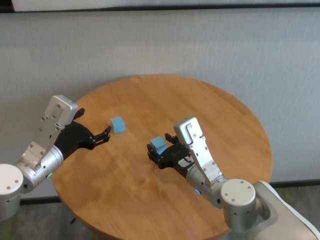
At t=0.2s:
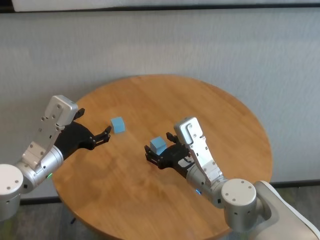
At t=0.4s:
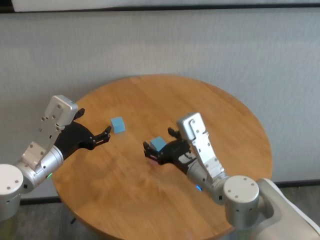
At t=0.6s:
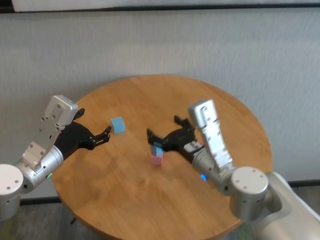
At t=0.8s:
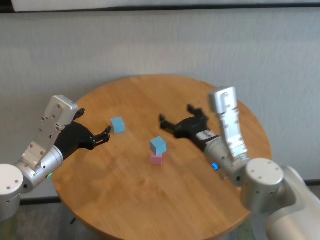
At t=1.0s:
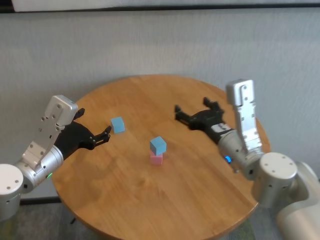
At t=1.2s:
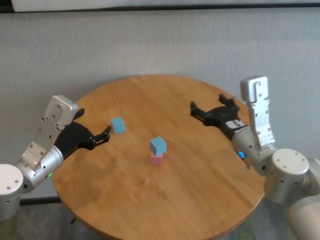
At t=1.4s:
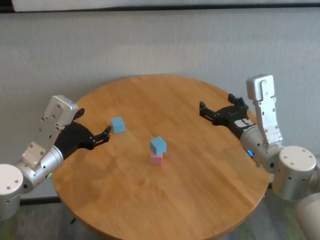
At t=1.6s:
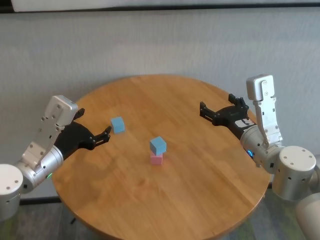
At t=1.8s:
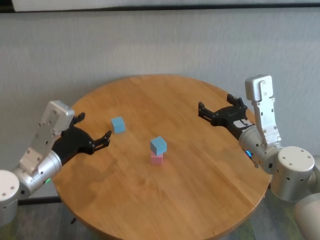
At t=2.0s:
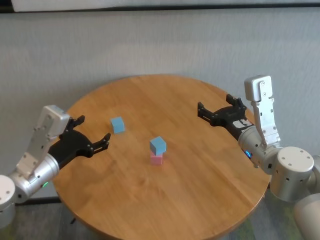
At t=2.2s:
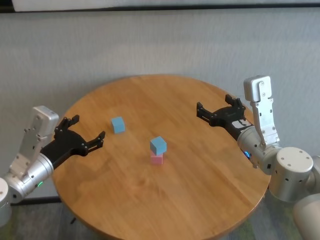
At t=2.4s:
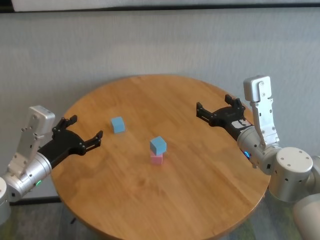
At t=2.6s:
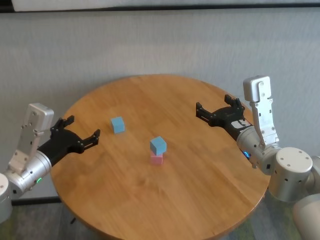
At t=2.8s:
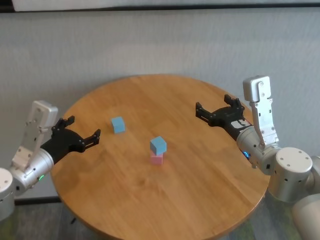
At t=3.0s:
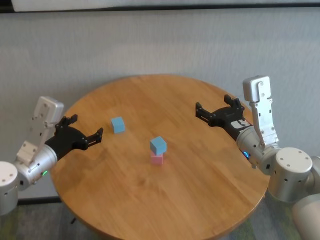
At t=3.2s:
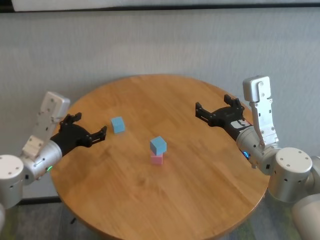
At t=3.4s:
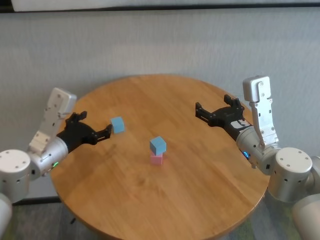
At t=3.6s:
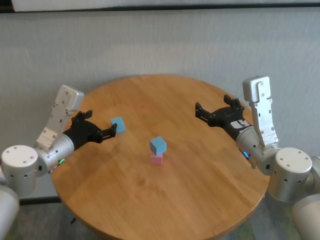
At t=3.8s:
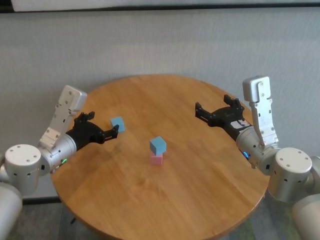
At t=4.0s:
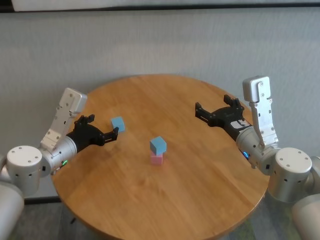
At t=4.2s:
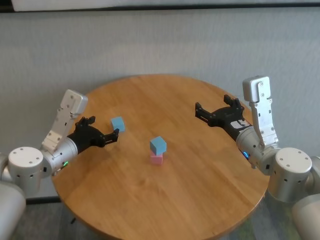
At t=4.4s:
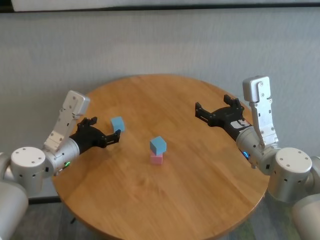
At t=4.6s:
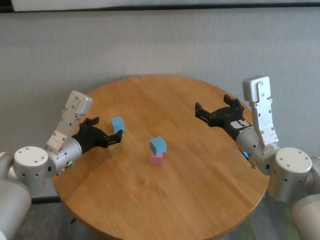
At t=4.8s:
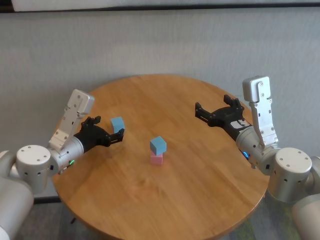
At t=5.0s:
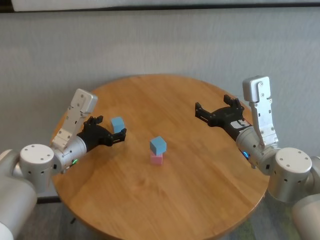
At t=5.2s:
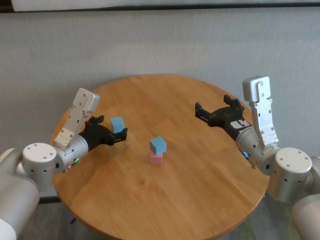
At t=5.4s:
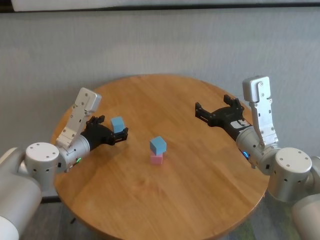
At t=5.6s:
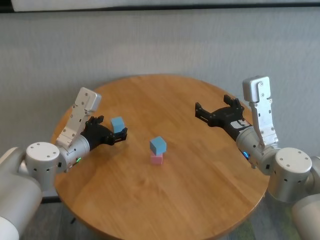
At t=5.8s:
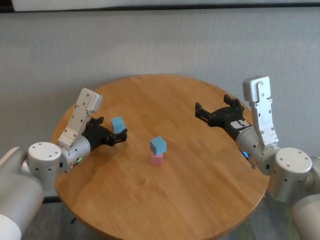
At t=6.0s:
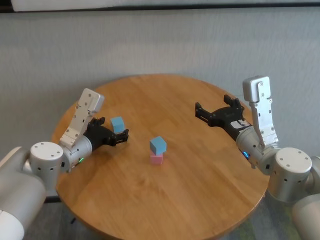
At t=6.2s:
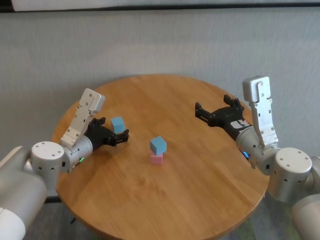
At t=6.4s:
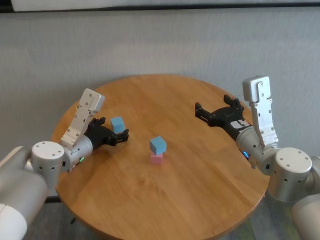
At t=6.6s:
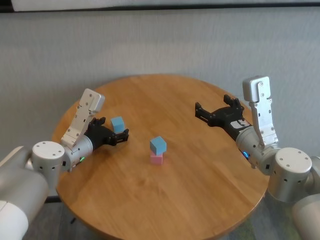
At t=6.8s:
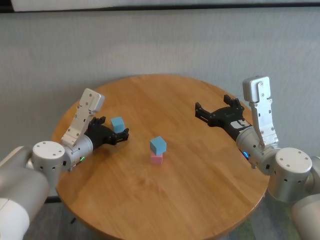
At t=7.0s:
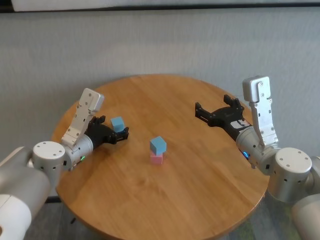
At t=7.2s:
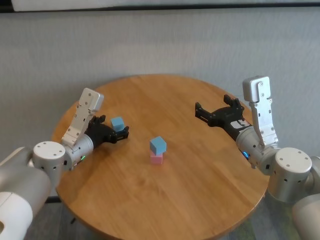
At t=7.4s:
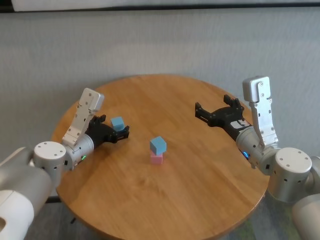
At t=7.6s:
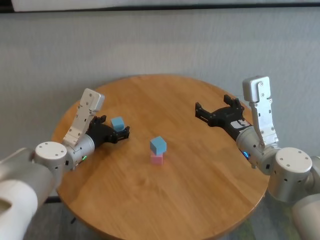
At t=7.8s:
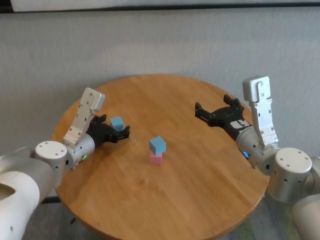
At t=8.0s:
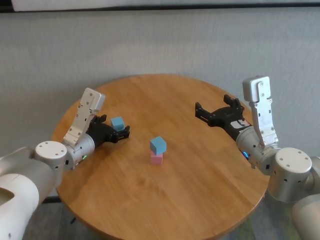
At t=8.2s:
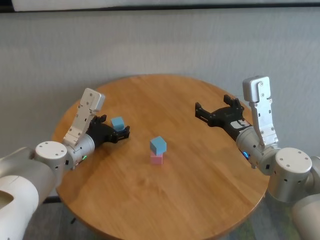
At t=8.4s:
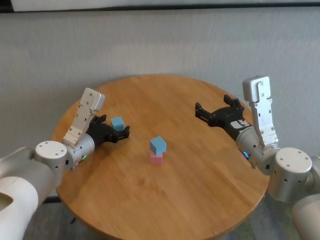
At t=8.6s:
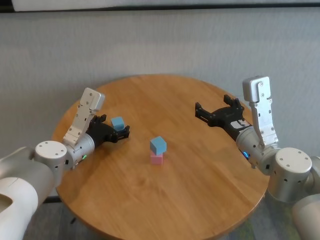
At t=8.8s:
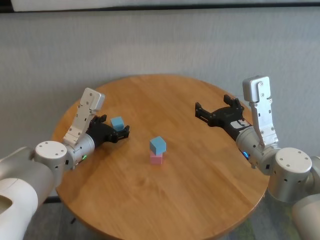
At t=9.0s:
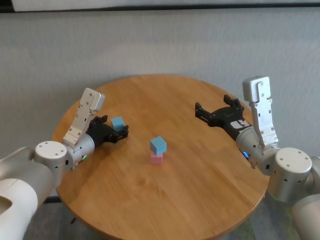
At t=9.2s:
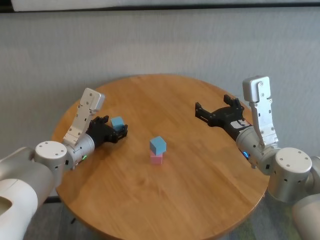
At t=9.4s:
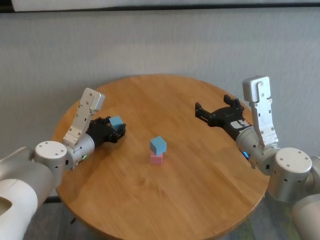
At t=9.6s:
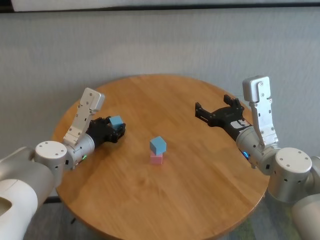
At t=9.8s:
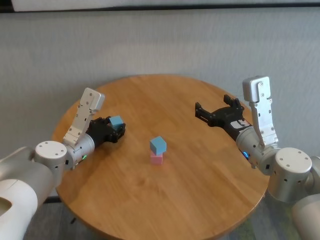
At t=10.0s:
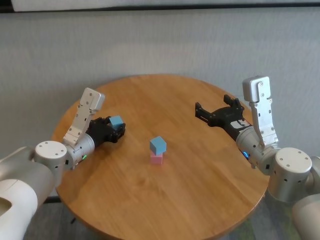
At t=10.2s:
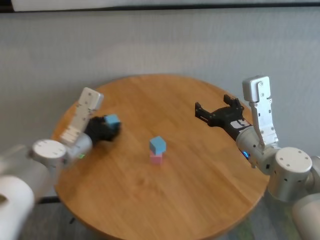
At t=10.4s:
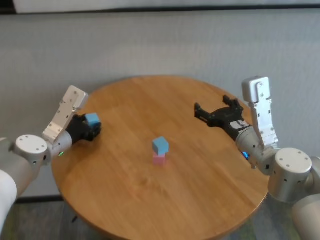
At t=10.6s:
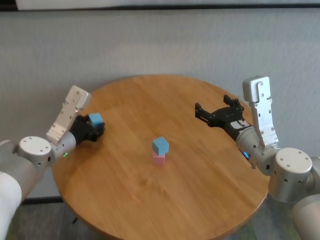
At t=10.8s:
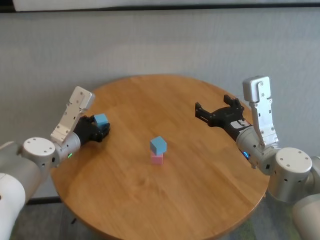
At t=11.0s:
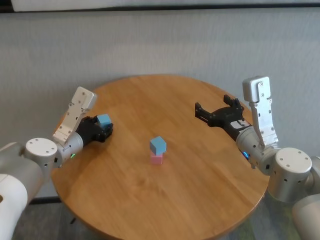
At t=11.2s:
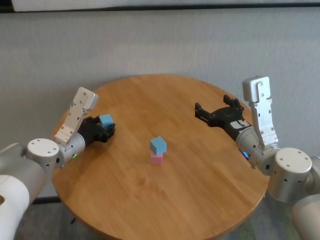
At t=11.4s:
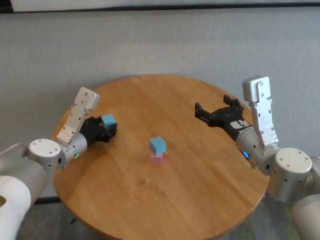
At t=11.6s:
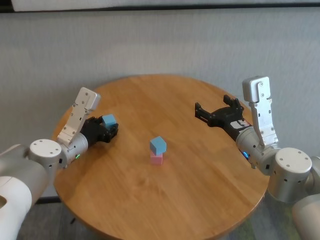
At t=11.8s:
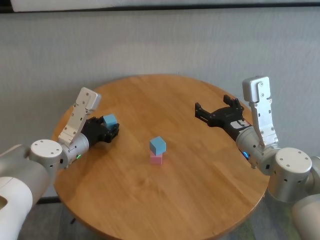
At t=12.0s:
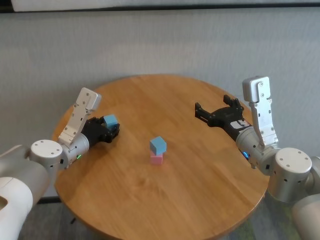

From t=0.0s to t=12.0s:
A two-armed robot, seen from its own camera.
Task of the whole recording: stack building blocks on the table.
Step, from t=0.0s to t=9.4s: Grasp the blue building block with left gripper.

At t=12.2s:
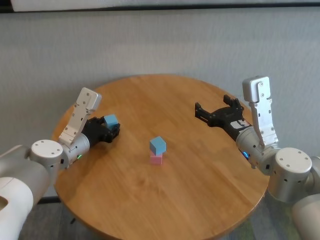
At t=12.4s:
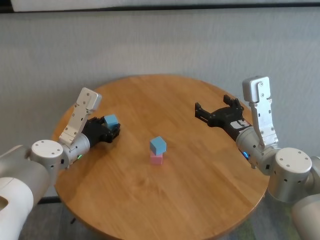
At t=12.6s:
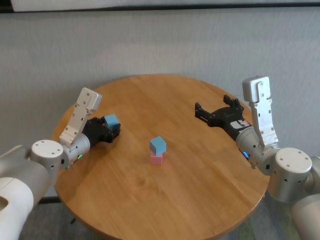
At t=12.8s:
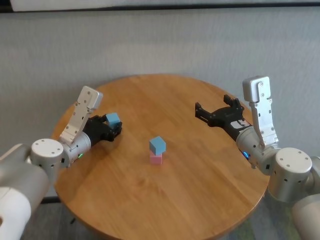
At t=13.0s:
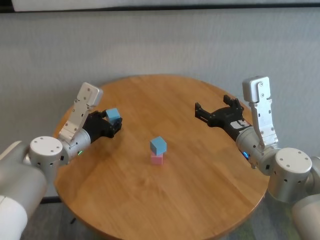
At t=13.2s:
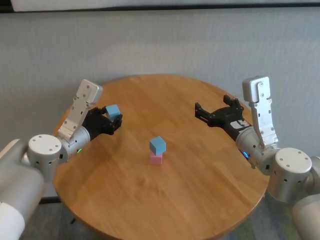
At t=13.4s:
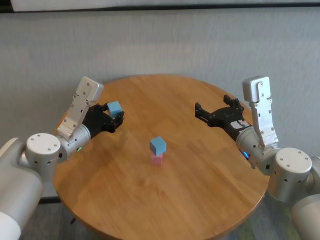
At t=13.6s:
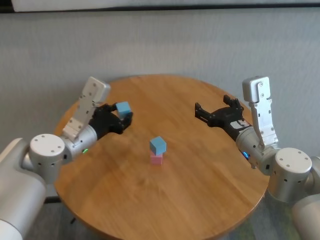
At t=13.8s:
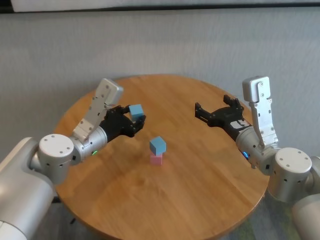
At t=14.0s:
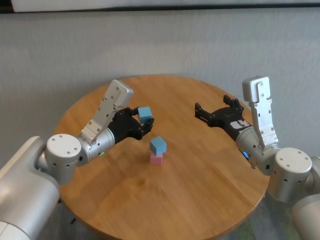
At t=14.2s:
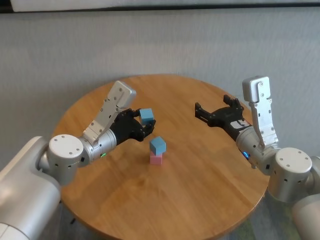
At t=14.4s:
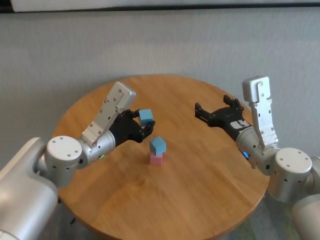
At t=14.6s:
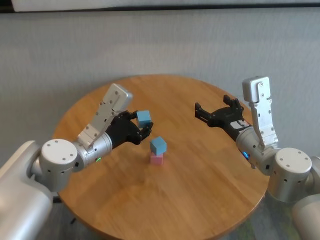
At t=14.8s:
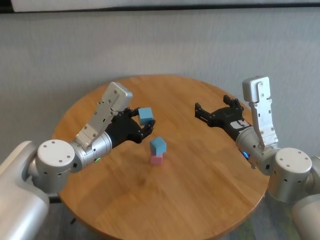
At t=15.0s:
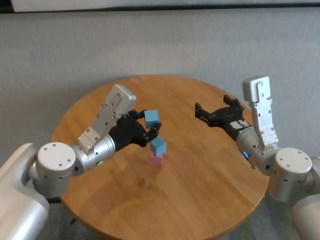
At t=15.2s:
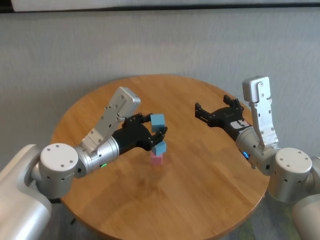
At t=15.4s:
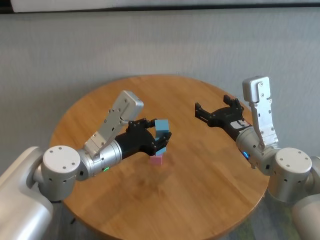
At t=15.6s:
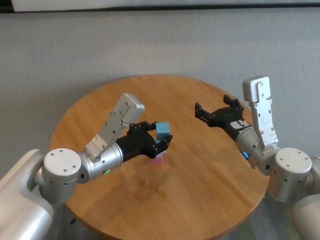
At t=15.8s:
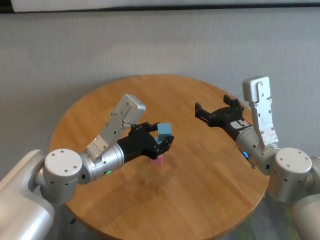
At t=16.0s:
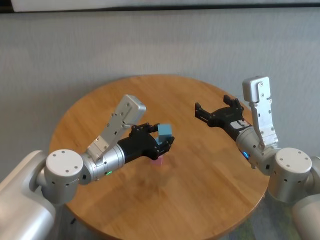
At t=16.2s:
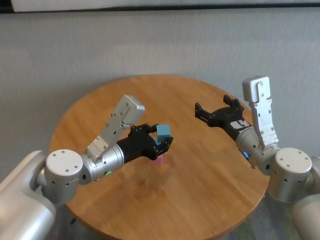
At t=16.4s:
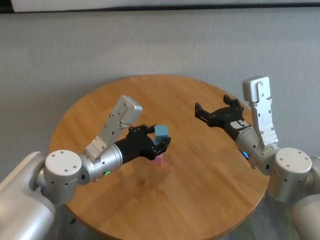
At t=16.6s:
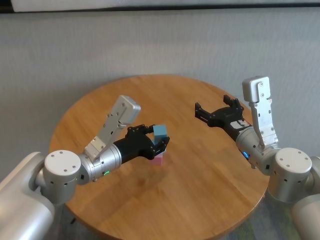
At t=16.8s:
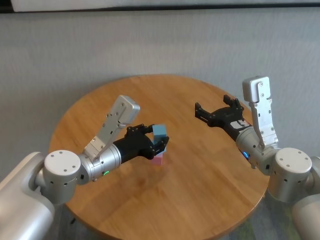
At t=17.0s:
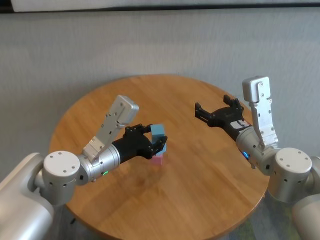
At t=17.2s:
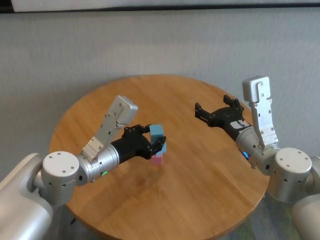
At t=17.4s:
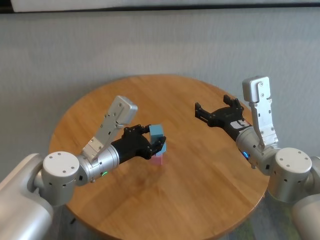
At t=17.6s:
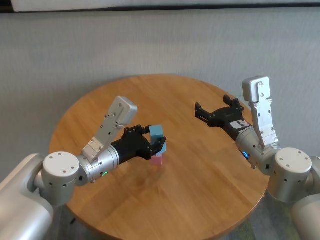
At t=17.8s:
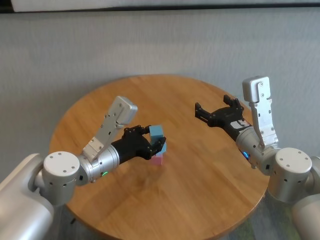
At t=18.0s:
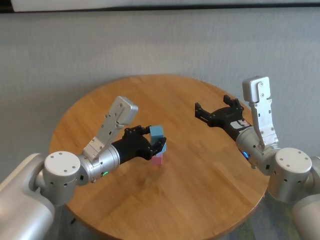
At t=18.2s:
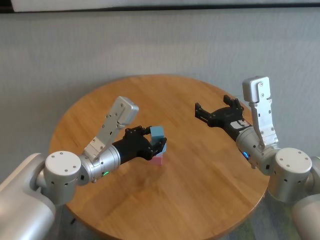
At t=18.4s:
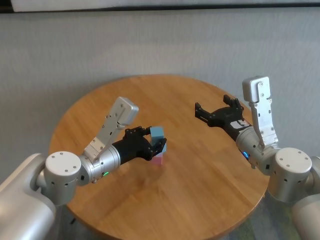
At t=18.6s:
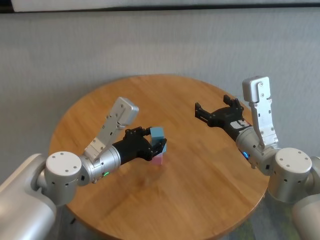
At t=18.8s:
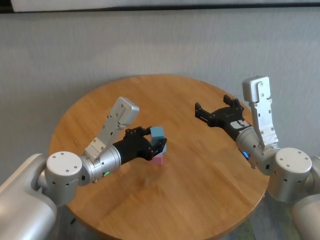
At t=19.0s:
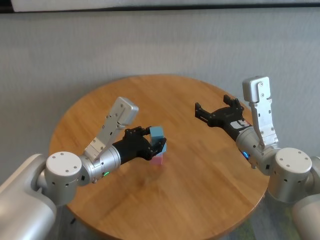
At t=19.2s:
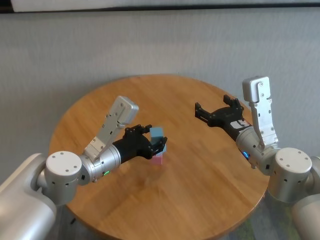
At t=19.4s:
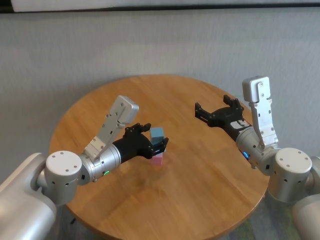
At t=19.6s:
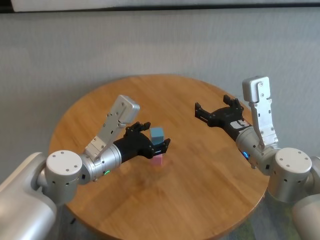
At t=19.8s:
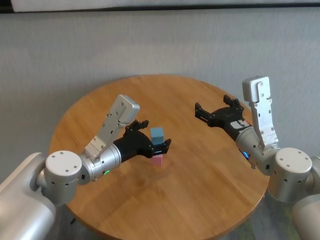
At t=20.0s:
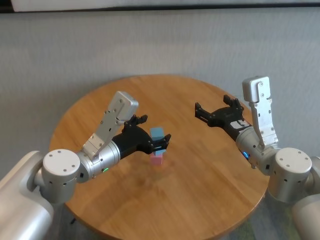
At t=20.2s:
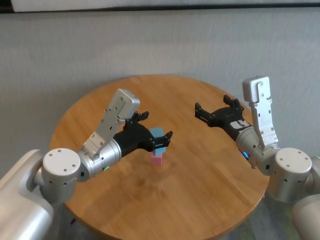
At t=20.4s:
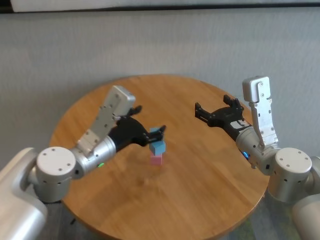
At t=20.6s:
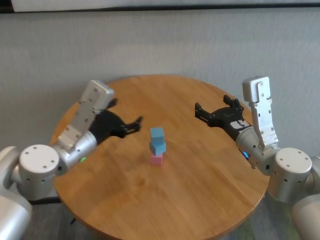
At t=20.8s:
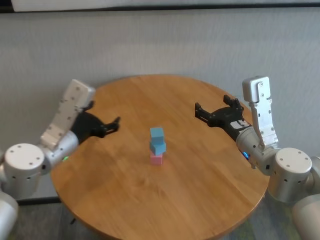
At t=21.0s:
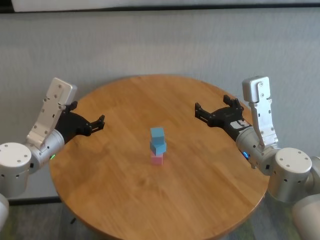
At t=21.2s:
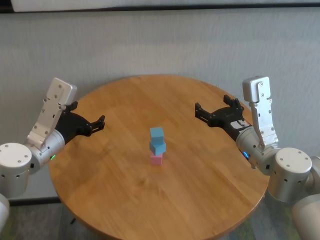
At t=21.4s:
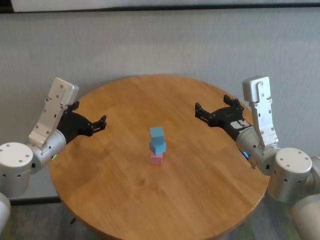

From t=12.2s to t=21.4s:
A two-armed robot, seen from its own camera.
Task of the whole recording: stack building blocks on the table.
Step, from t=12.2s to t=19.4s: Place the blue building block on the blue building blocks with left gripper.
